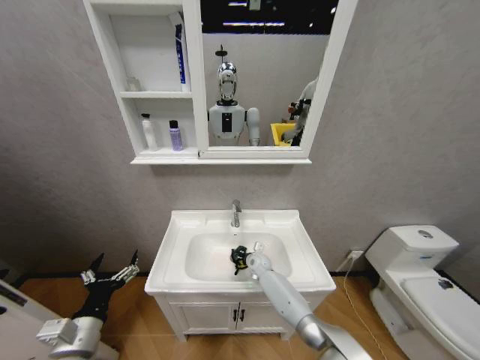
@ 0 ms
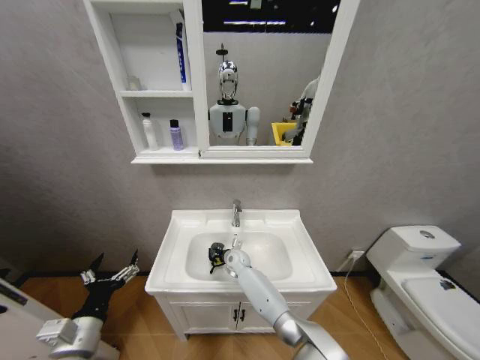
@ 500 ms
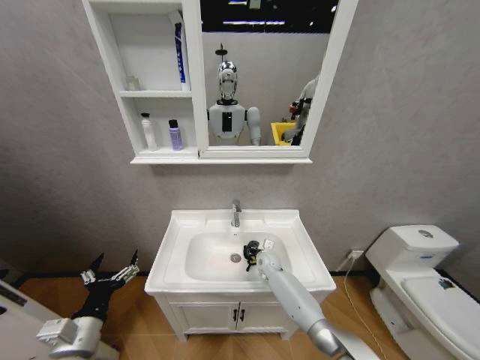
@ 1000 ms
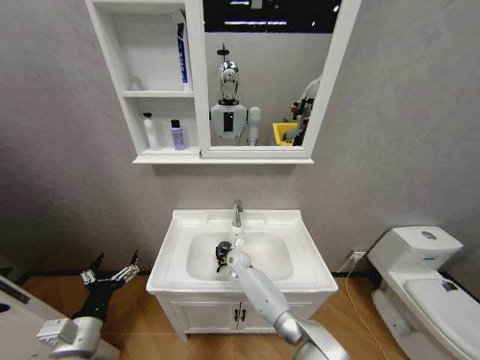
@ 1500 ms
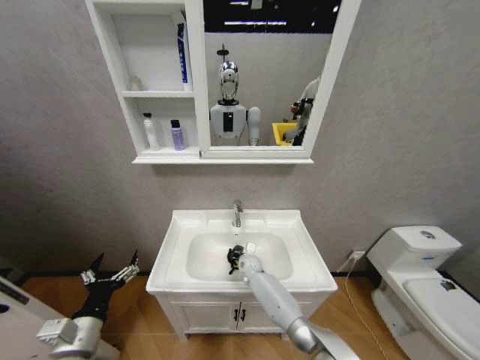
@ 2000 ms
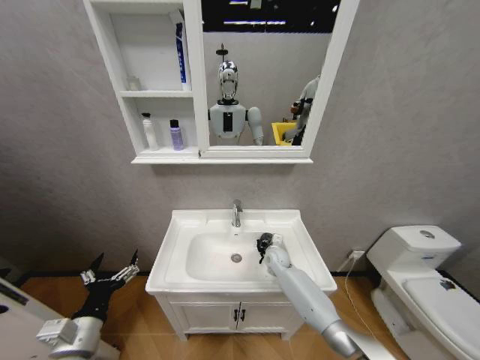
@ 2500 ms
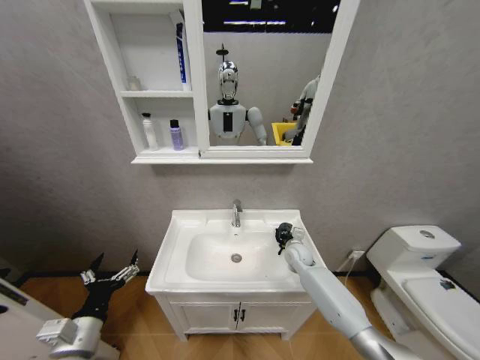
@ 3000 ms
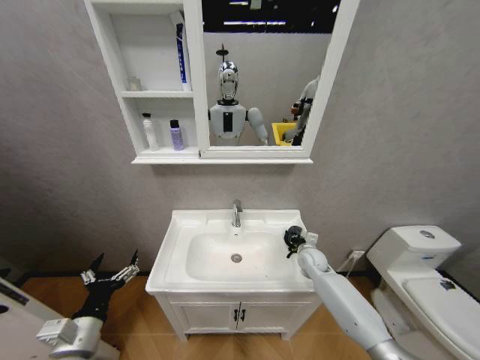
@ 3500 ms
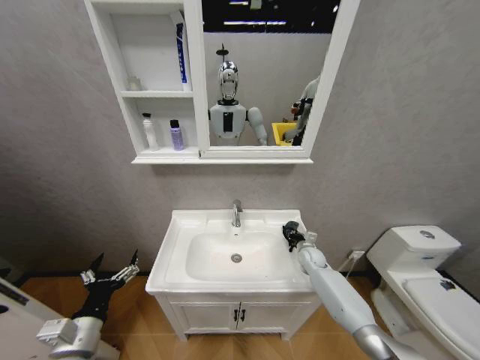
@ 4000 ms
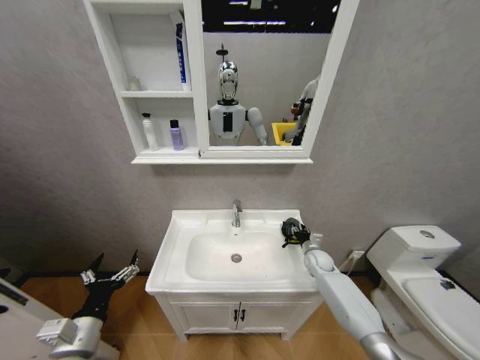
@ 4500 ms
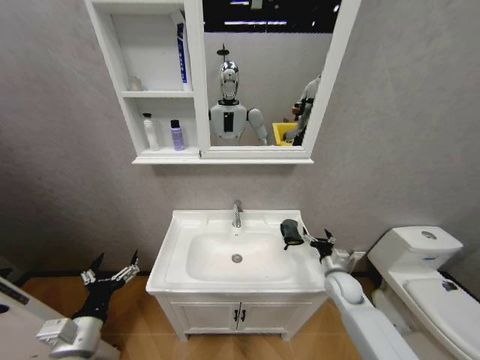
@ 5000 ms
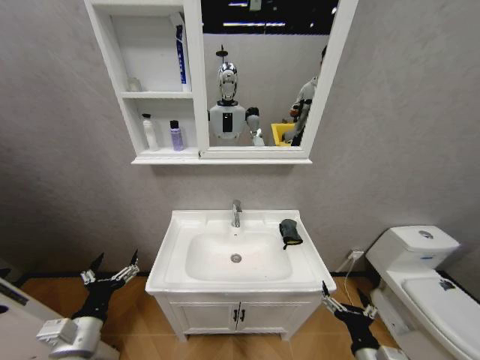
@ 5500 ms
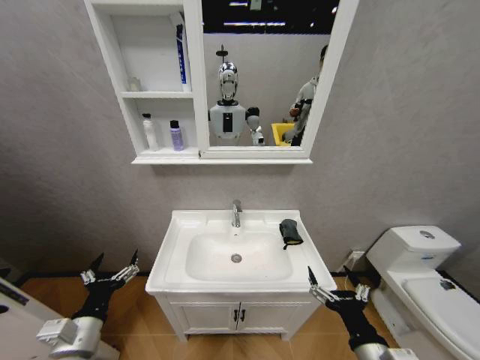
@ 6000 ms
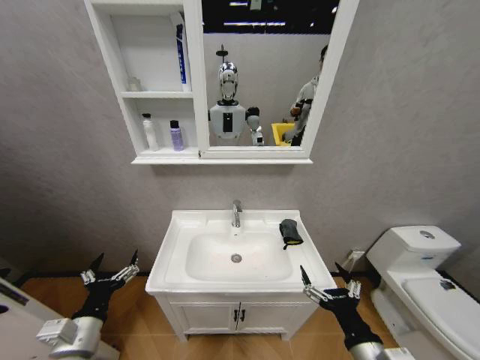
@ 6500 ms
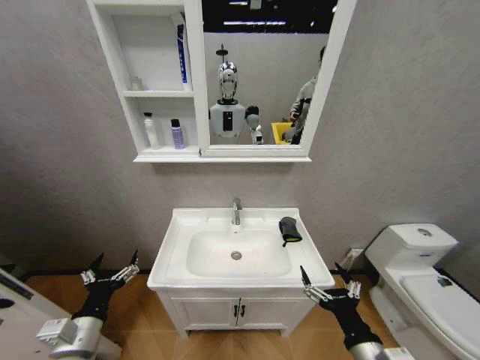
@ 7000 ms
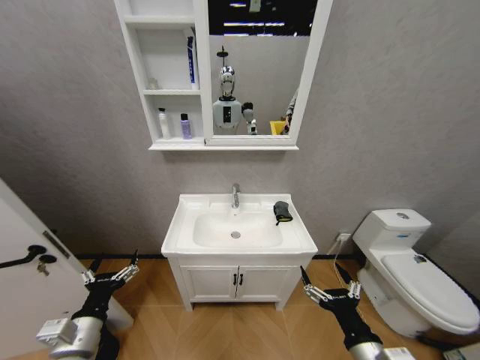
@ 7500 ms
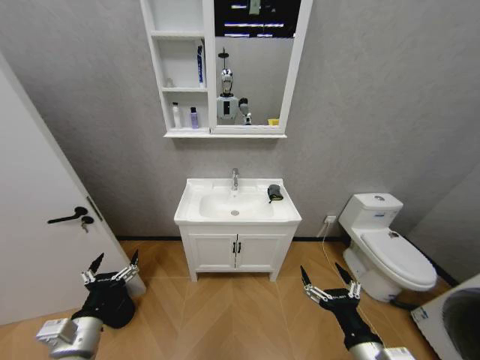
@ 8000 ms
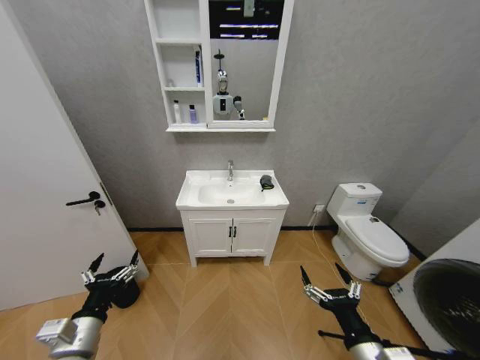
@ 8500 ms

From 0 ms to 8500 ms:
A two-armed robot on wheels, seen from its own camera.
Task of the whole recording: Move facial cleanser and shampoo from washbasin to cabinet, then wipe washbasin with towel.
From 0 ms to 2000 ms: The right gripper swings left and right, about 10 cm each way, with 3 reversals.
From 2000 ms to 4000 ms: The right gripper goes some 25 cm to the right.
From 4000 ms to 6500 ms: The right gripper is displaced backward by some 40 cm, and opens up.

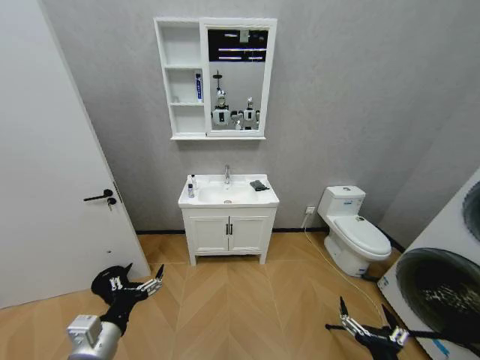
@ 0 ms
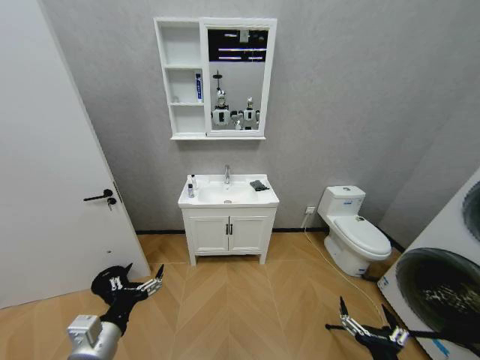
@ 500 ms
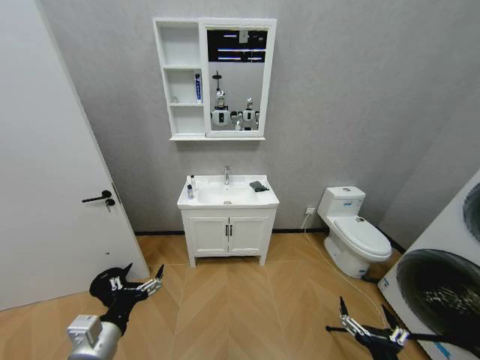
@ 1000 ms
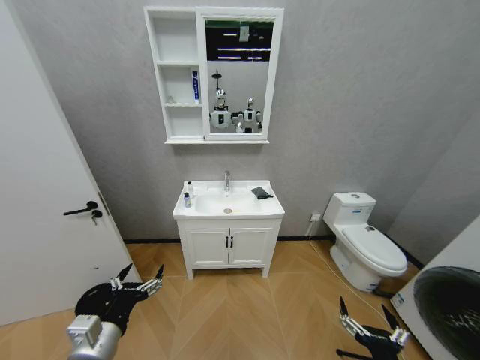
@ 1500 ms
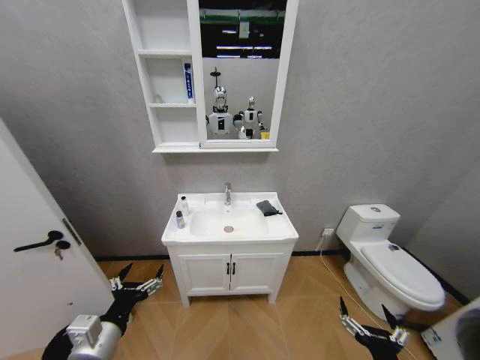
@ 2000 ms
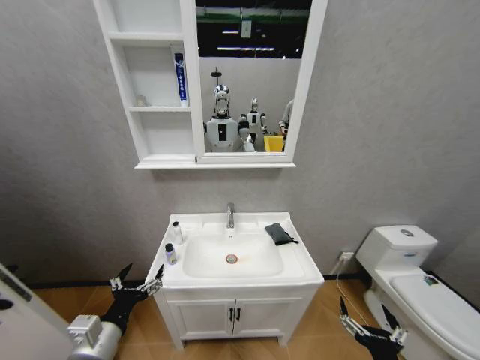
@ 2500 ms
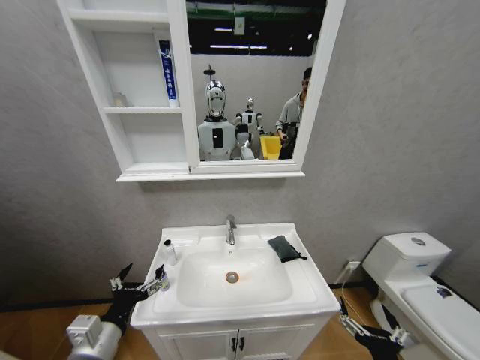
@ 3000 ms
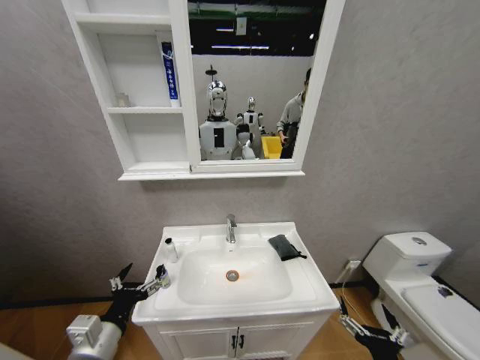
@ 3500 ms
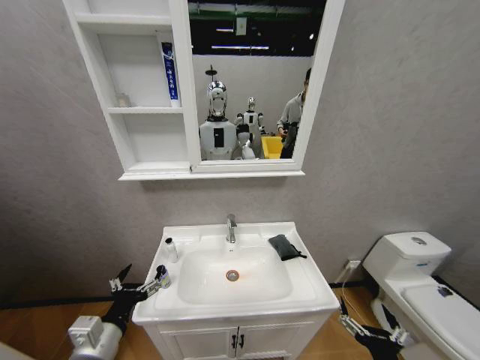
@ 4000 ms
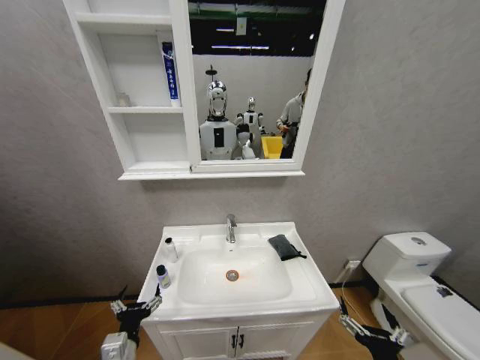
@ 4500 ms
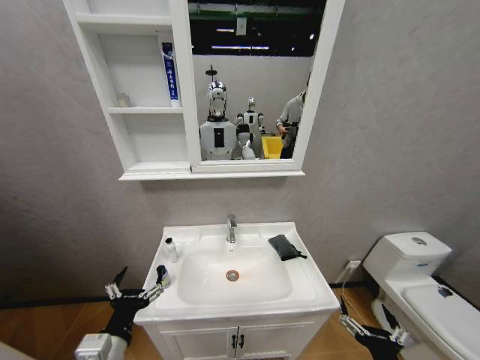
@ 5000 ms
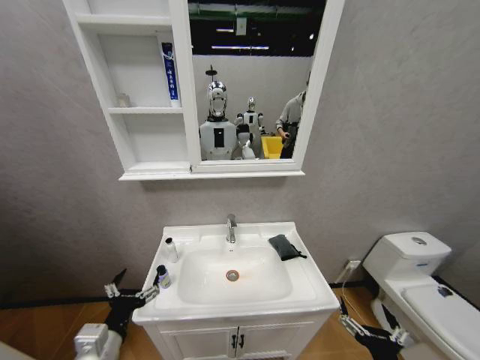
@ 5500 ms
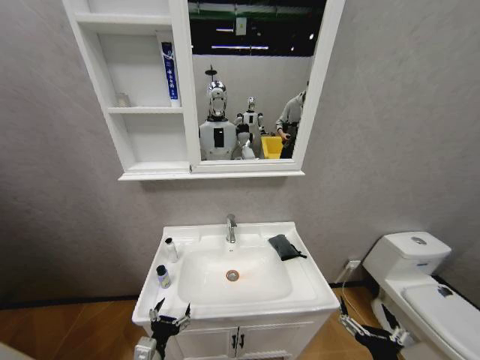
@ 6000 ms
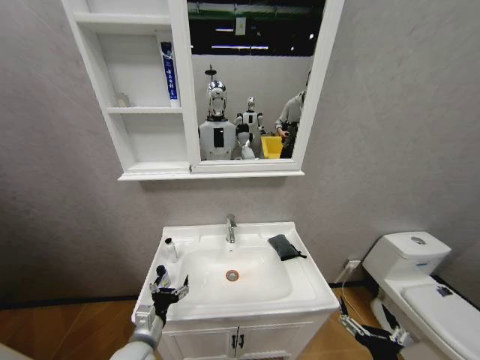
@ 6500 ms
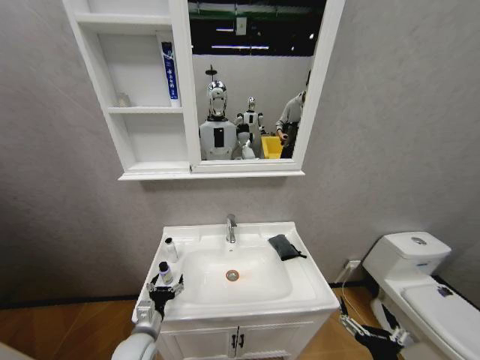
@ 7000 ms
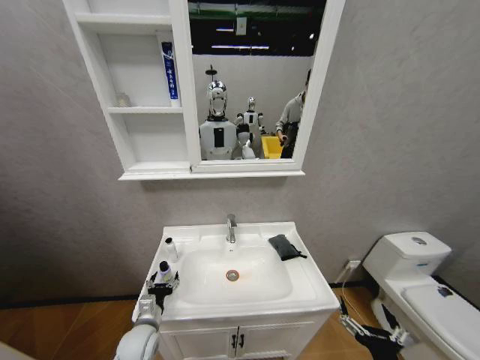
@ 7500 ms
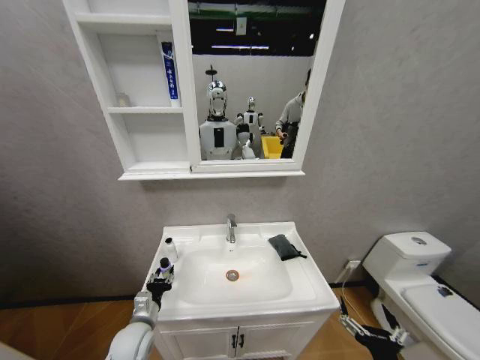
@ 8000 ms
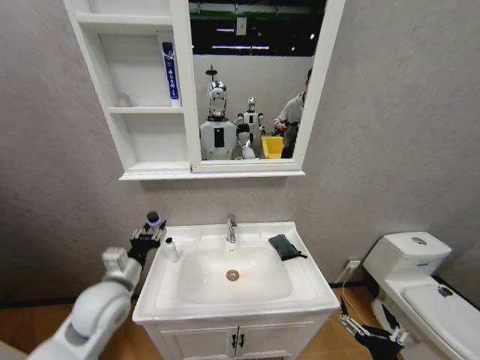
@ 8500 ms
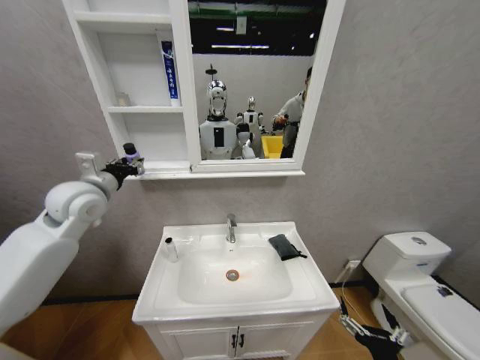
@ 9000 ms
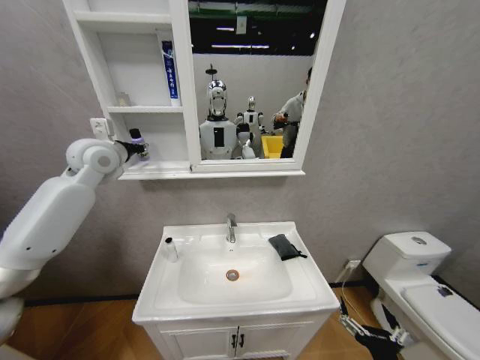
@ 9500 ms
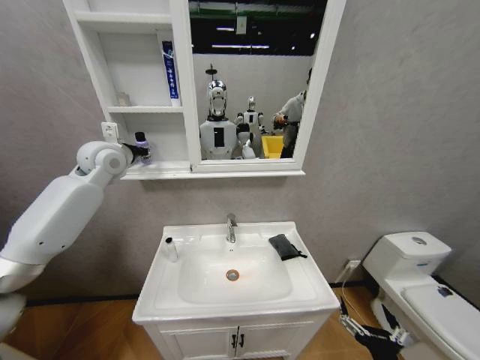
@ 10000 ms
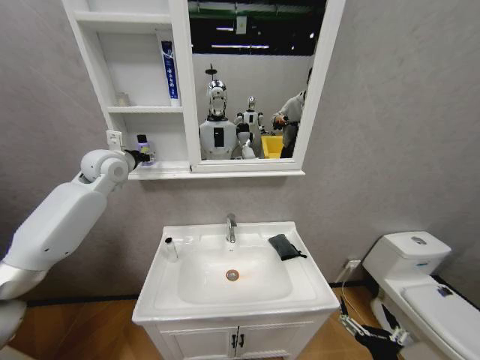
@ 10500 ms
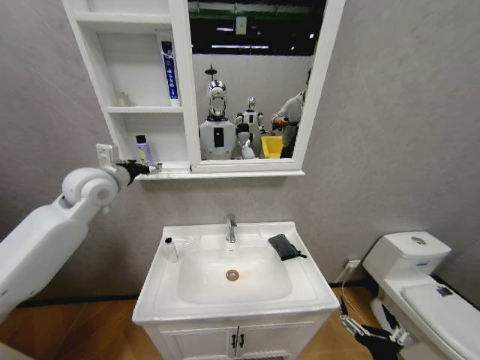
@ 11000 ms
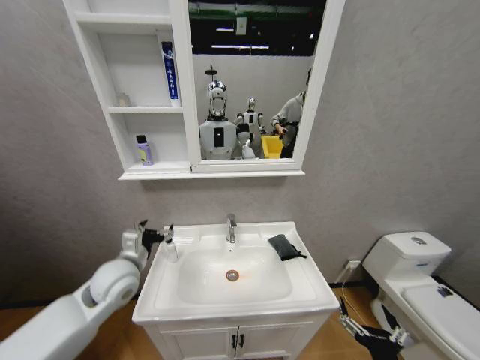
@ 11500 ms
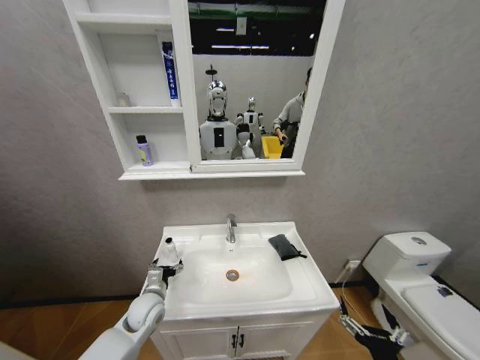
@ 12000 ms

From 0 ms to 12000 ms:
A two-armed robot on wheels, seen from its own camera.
Task of the whole recording: Move facial cleanser and shampoo from washbasin to cabinet, then wipe washbasin with towel.
From 4000 ms to 6000 ms: The left gripper goes up and down, about 15 cm each way, reversing 2 times.
From 6000 ms to 8000 ms: The left gripper moves forward, approximately 10 cm, and closes.
From 8000 ms to 10000 ms: The left gripper moves upward and forward, approximately 50 cm.
From 10000 ms to 12000 ms: The left gripper travels downward and backward by approximately 40 cm, and opens up.

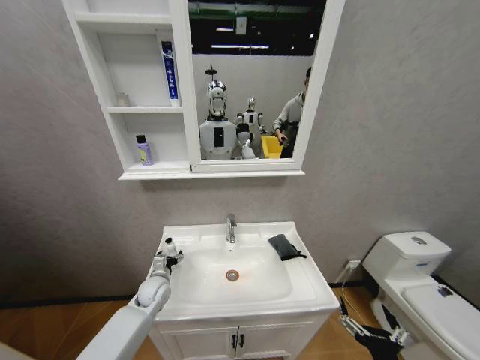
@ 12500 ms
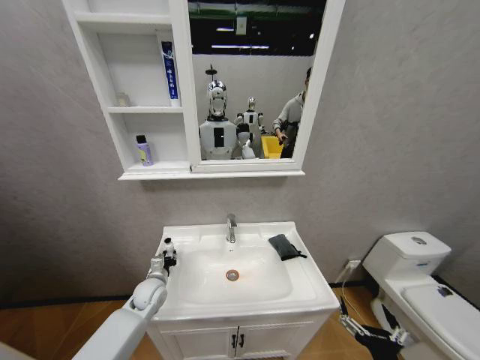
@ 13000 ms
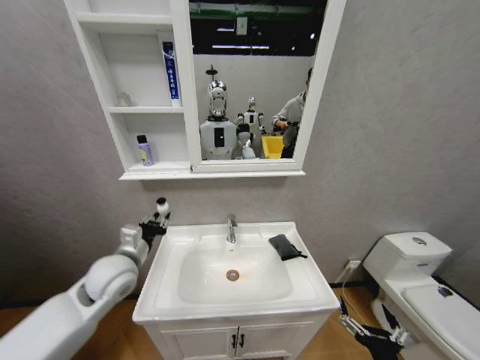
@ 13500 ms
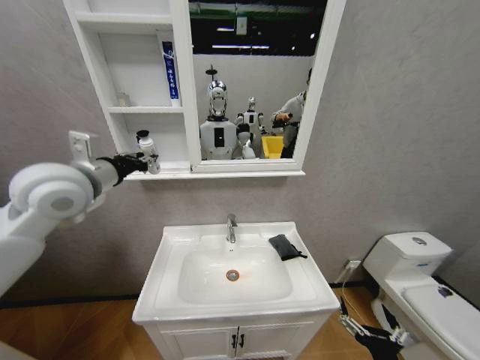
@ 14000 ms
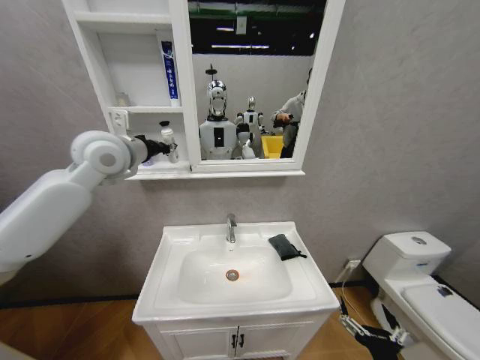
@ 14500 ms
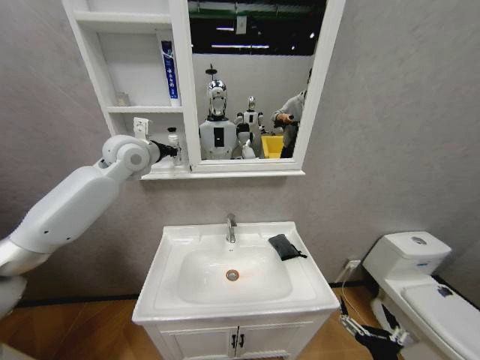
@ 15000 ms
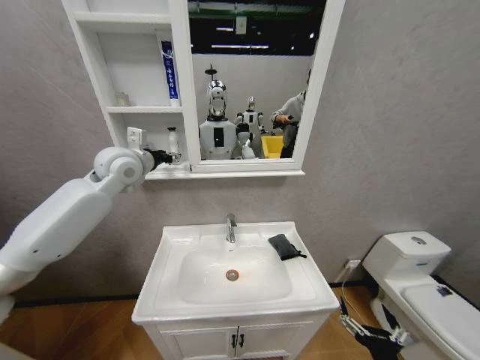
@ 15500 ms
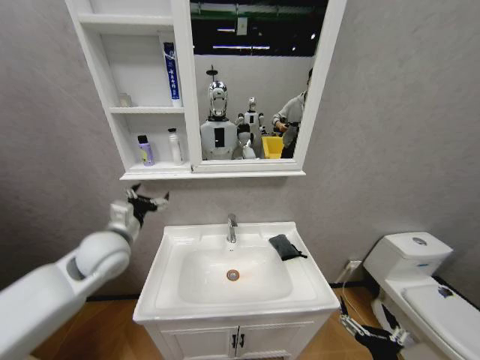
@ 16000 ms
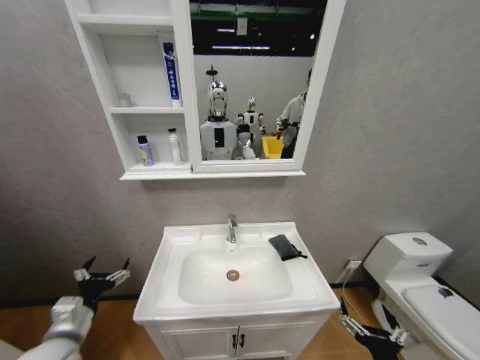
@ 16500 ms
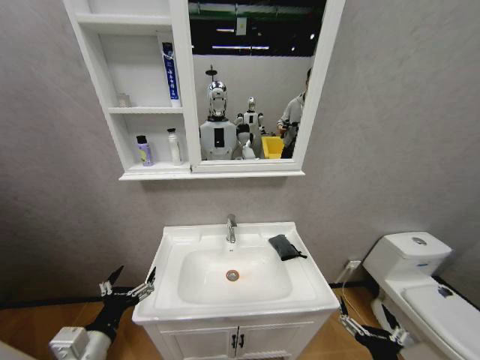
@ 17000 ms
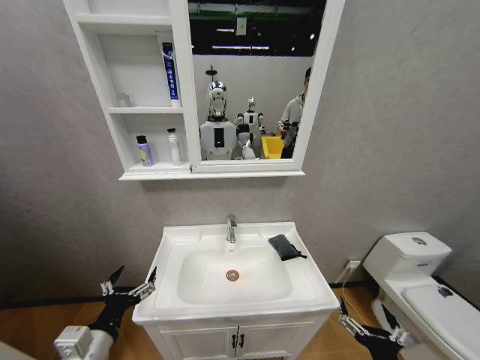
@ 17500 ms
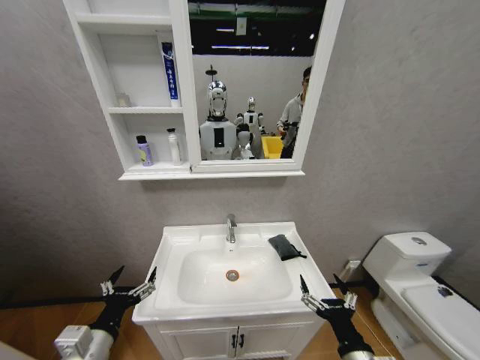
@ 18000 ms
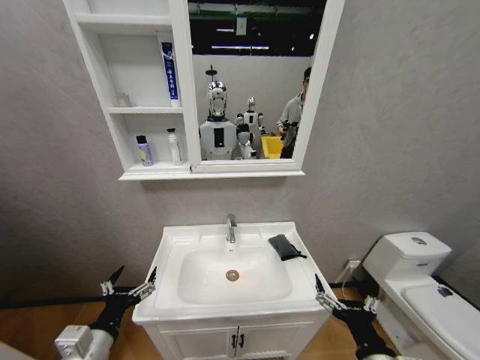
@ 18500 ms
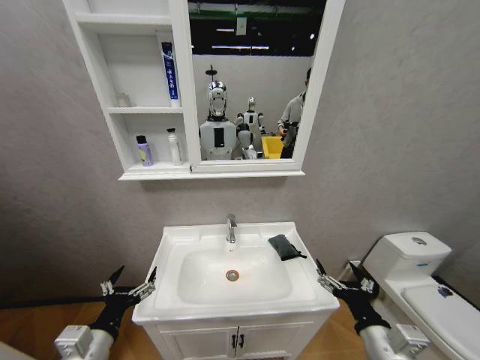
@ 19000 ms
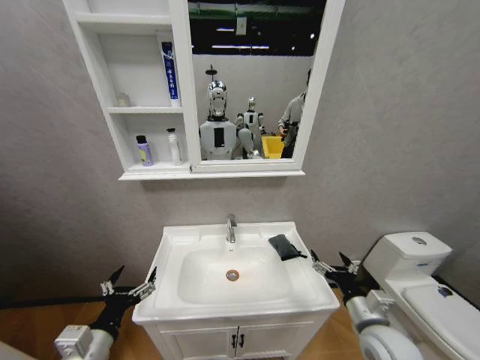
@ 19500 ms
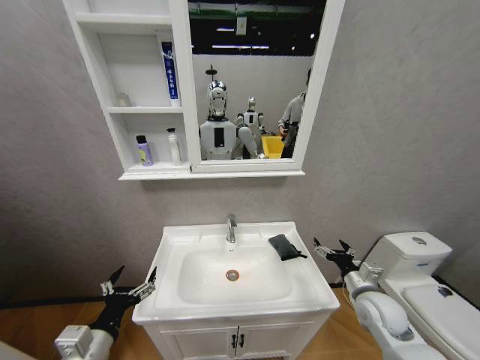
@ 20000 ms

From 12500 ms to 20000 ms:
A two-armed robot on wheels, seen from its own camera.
Task of the whole recording: Move facial cleanser and shampoo from washbasin to cabinet, then wipe washbasin with towel.
From 12500 ms to 14500 ms: The left gripper is displaced upward by some 40 cm, and closes.
From 14500 ms to 16500 ms: The left gripper travels downward and backward by roughly 40 cm, and opens up.
From 16500 ms to 18000 ms: The right gripper shifts by about 5 cm, while the left gripper travels to the right by about 5 cm.
From 18000 ms to 20000 ms: The right gripper moves forward and to the right, approximately 20 cm.
